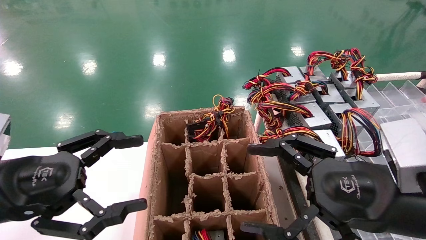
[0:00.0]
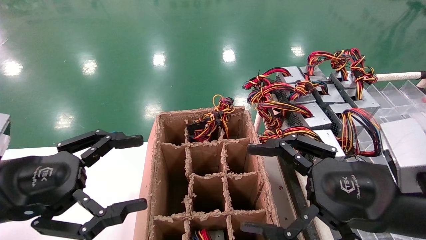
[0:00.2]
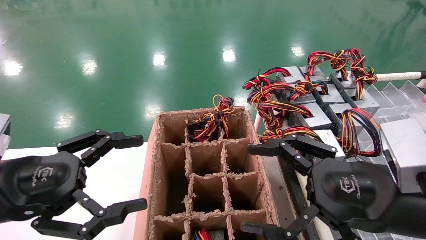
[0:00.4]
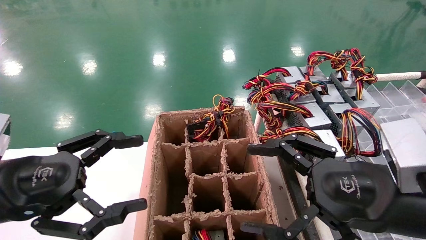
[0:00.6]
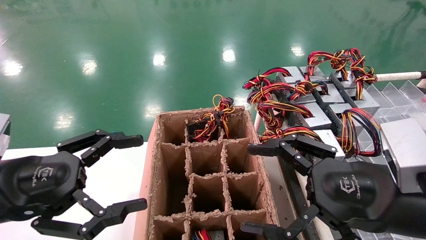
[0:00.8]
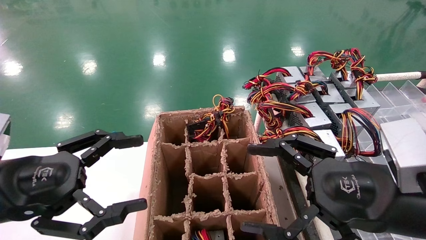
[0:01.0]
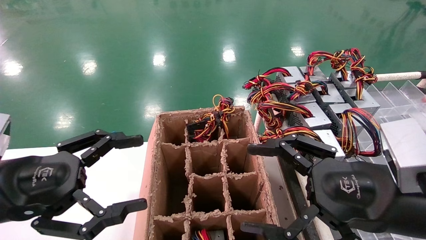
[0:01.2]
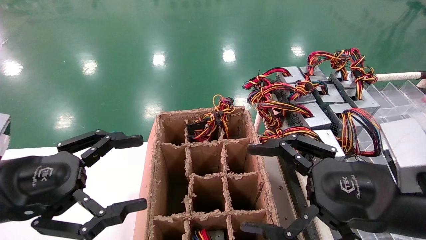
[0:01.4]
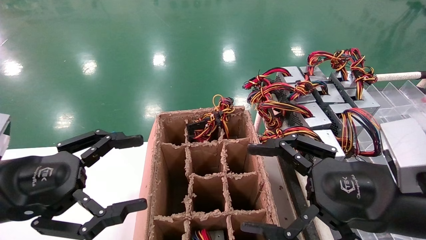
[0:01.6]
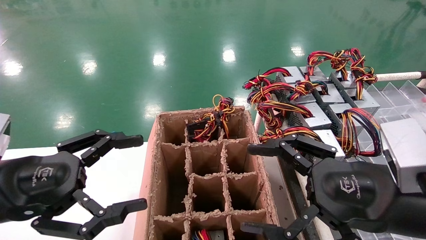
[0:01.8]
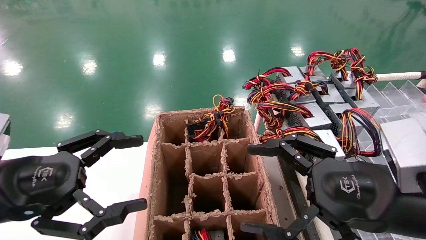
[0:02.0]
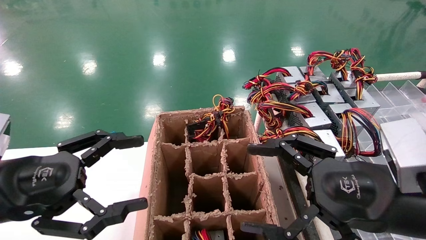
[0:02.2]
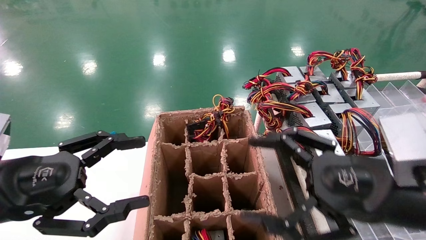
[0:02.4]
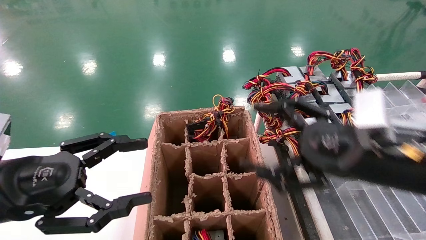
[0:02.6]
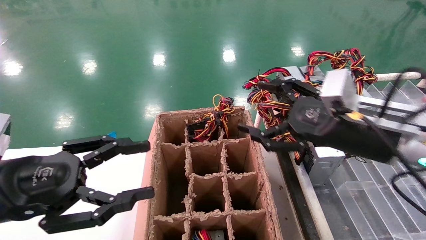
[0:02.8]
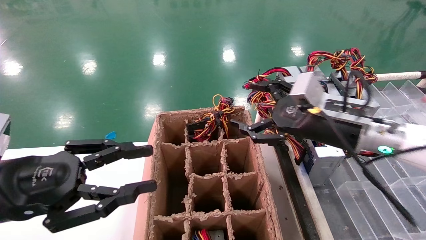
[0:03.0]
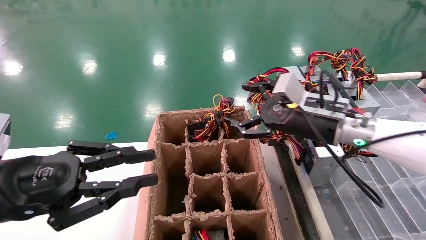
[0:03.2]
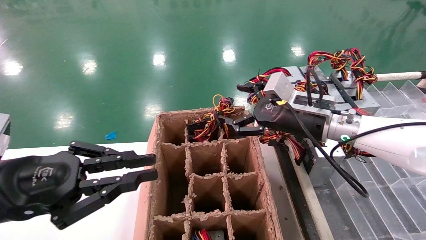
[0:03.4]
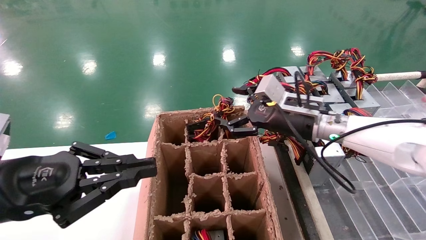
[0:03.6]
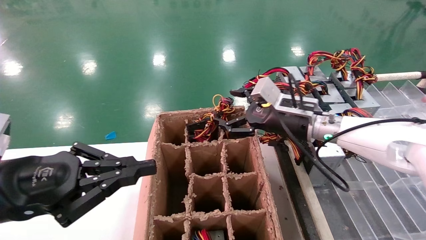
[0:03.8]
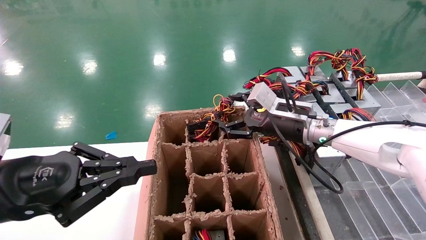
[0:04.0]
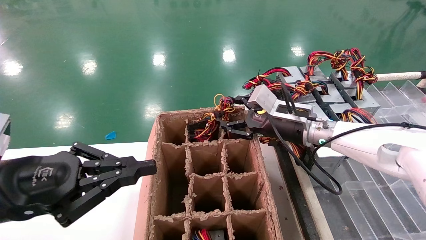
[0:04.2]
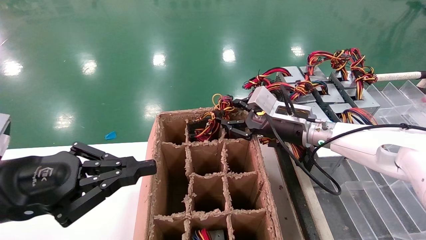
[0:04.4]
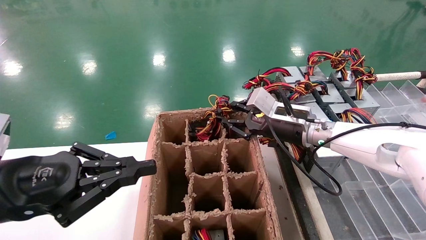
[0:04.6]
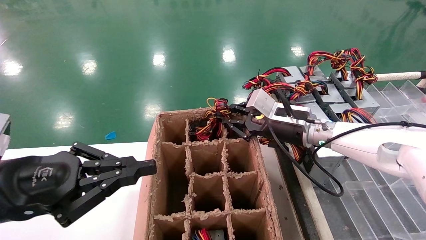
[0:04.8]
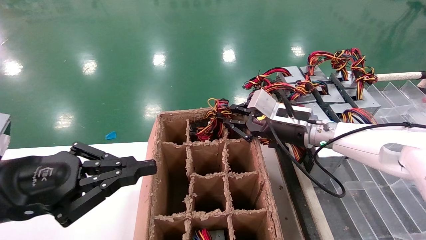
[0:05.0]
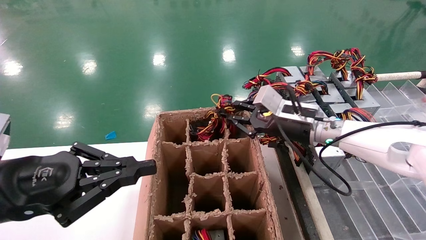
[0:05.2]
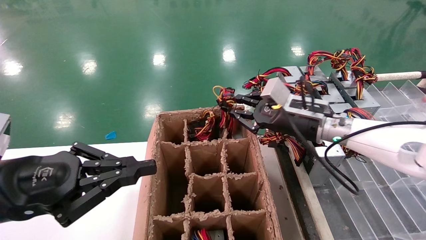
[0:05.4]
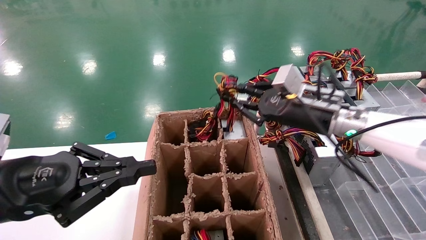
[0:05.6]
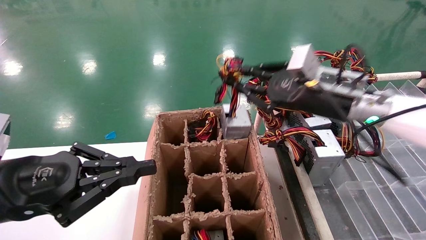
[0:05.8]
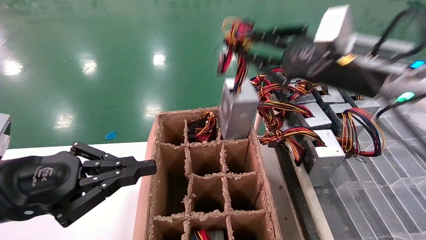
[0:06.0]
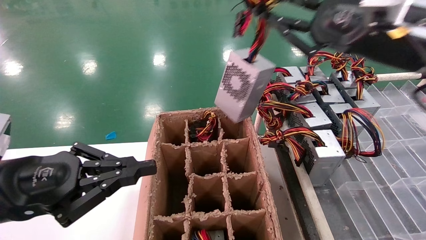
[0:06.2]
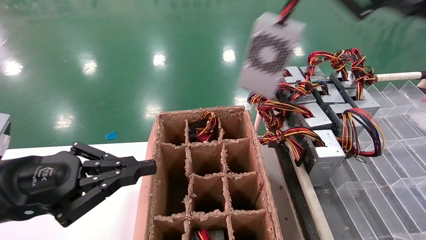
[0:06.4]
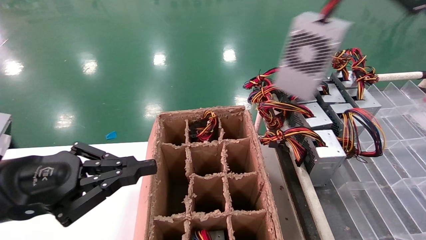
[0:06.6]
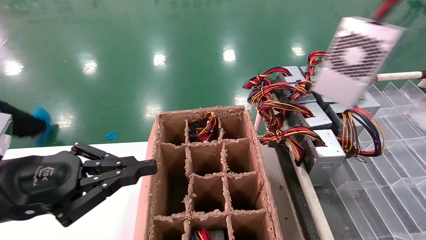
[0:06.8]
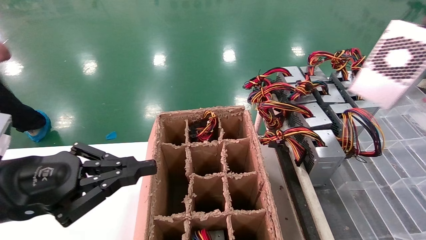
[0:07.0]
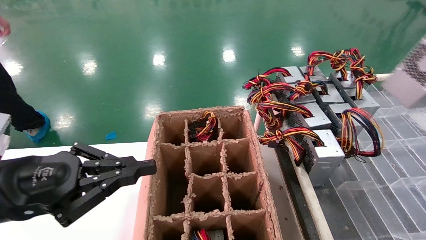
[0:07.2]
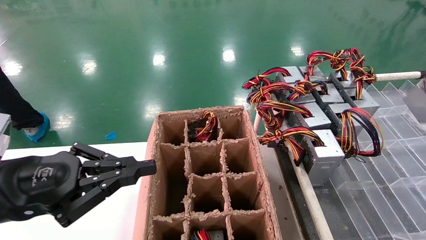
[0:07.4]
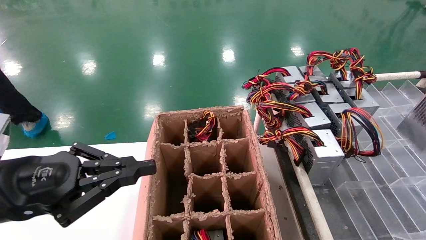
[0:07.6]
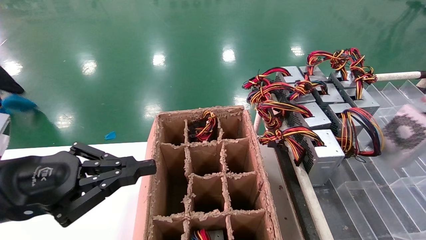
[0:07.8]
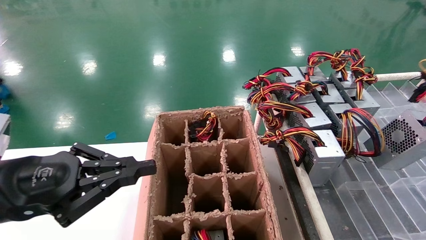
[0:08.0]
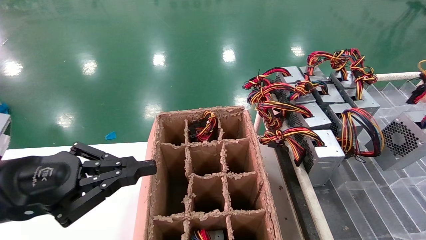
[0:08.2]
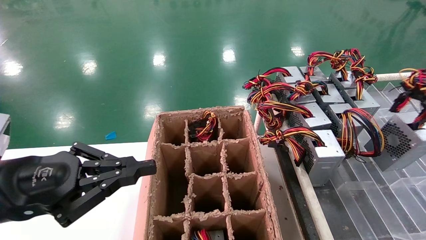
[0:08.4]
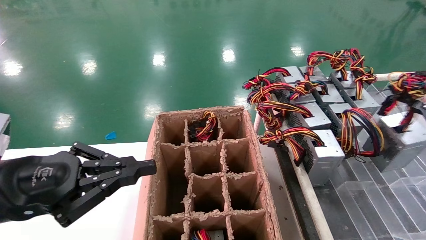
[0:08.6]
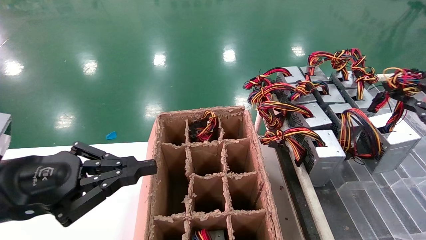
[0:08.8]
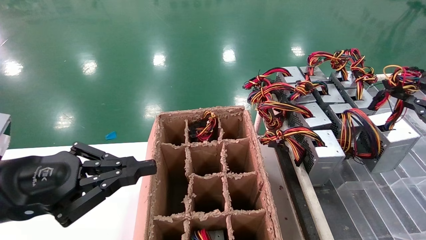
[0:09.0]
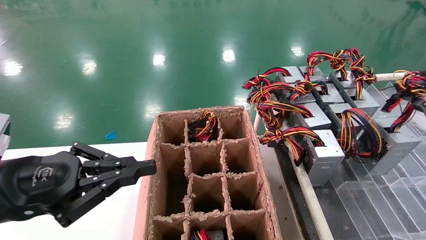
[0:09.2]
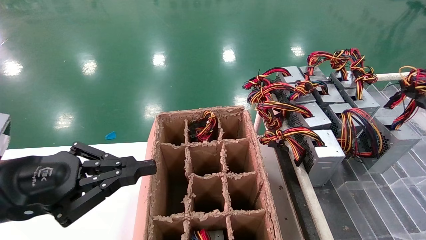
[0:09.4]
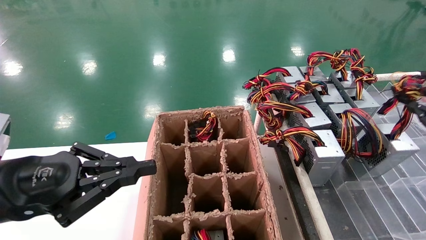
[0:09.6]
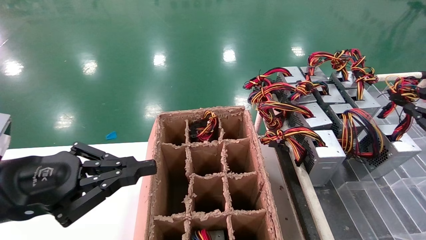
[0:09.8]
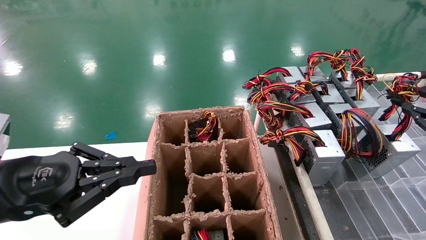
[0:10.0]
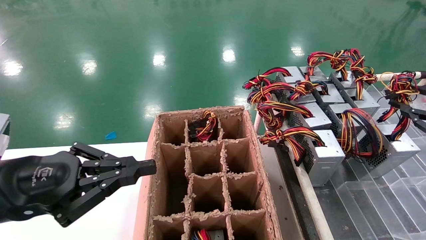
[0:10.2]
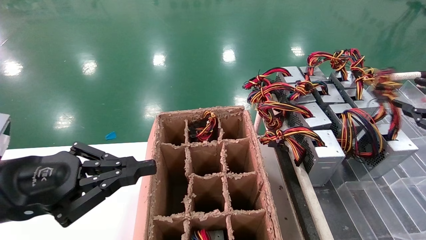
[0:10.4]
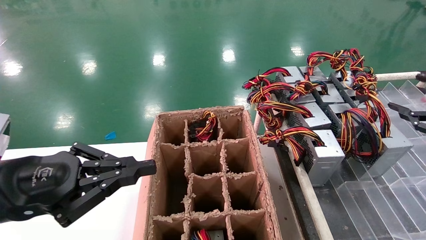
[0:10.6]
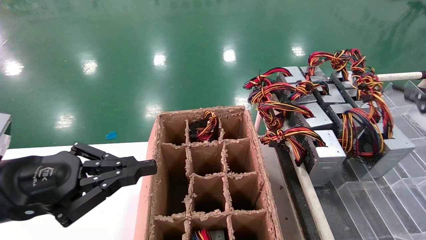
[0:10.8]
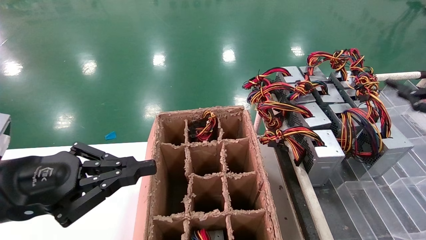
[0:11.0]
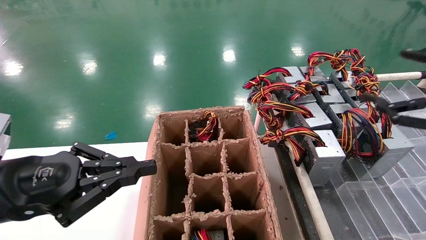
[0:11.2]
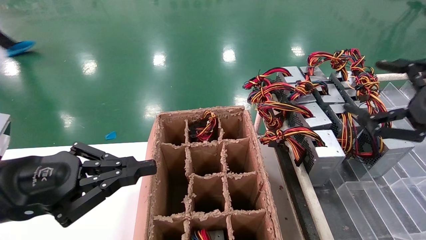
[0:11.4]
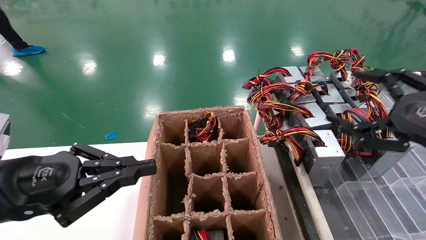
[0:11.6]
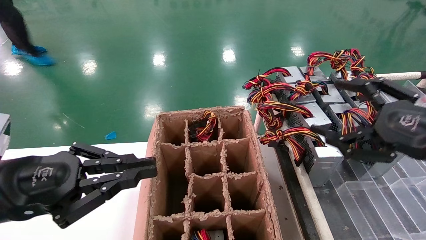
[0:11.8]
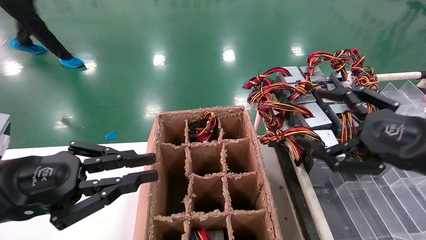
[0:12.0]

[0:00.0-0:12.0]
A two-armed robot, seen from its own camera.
Step, 0:02.8 to 0:05.0: Grab the main unit power supply from the containment box.
Step, 0:05.2 to 0:10.8: Place the main unit power supply in the designated area.
0:00.0 to 0:01.6: Both grippers stay put.
0:01.6 to 0:03.0: The right gripper heads forward, covering roughly 15 cm. Meanwhile the left gripper closes its fingers.
0:03.0 to 0:04.4: The left gripper closes; the right gripper heads forward, covering roughly 10 cm, and closes up.
0:04.4 to 0:06.0: The right gripper moves upward, backward and to the right, some 20 cm, and closes.
0:06.0 to 0:07.6: The right gripper goes some 30 cm to the right and backward.
0:07.6 to 0:09.0: The right gripper moves downward and to the left, about 10 cm.
0:09.0 to 0:10.4: The grippers stay close to where they were, moving slightly.
0:10.4 to 0:12.0: The right gripper goes roughly 15 cm to the left, and opens up.

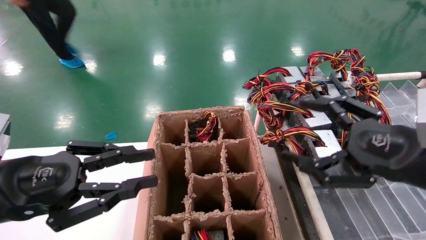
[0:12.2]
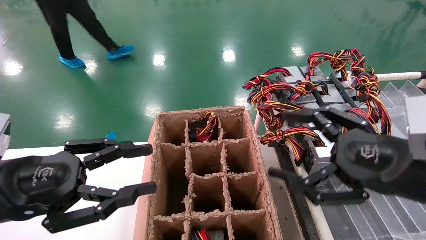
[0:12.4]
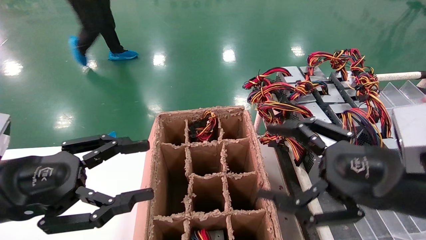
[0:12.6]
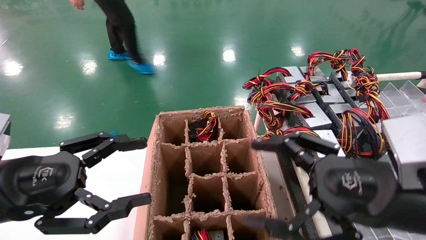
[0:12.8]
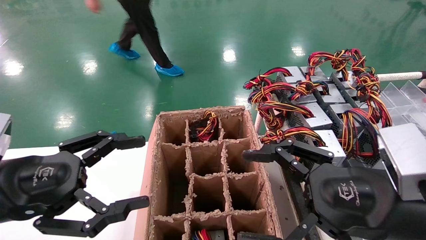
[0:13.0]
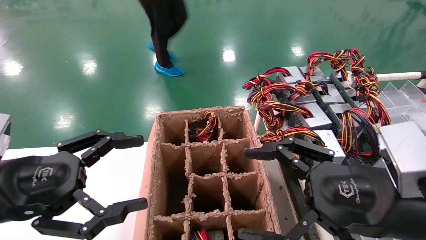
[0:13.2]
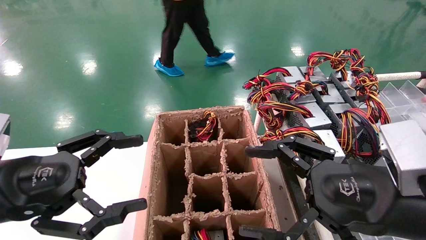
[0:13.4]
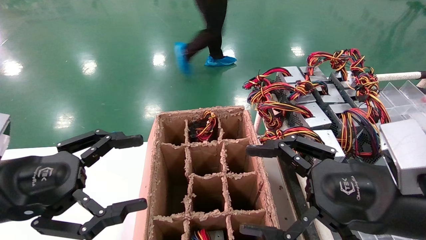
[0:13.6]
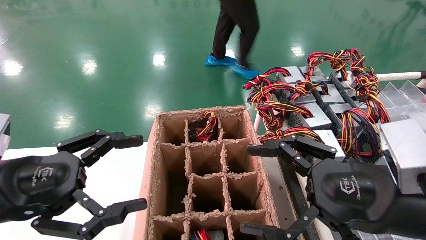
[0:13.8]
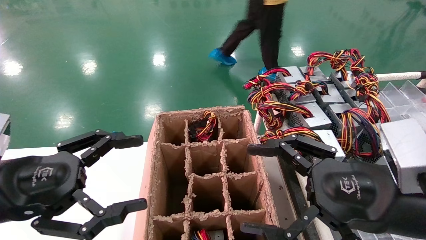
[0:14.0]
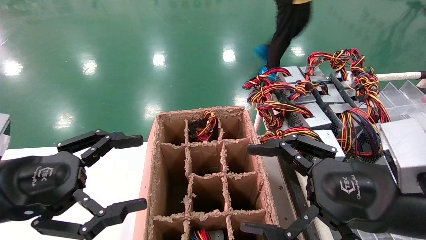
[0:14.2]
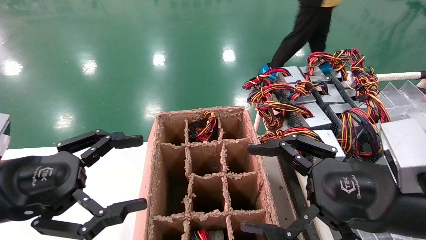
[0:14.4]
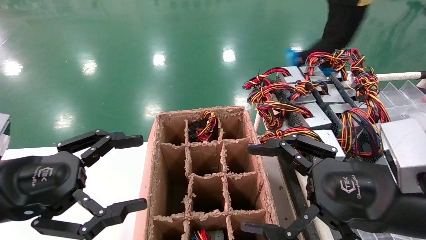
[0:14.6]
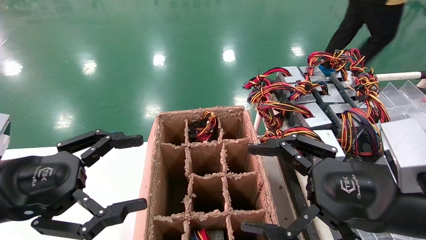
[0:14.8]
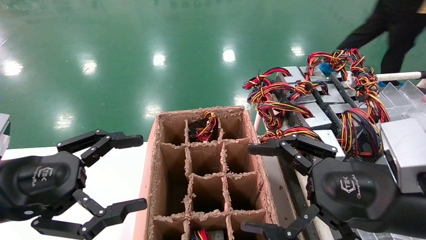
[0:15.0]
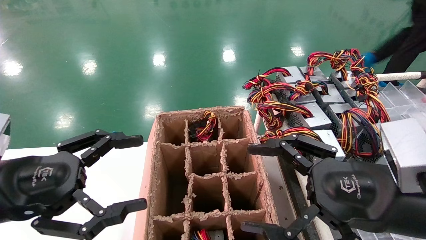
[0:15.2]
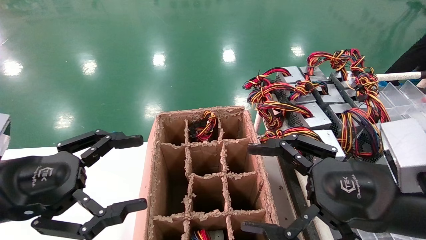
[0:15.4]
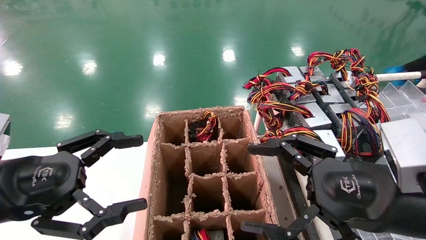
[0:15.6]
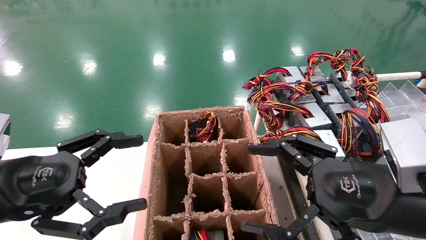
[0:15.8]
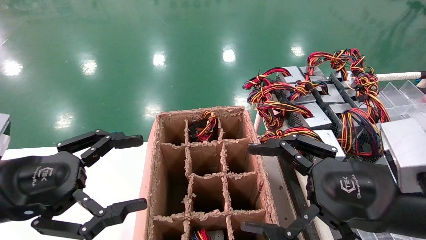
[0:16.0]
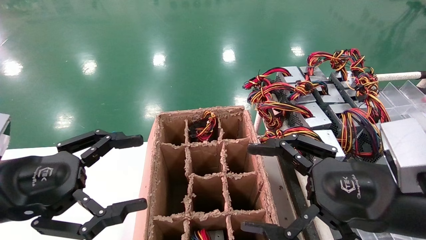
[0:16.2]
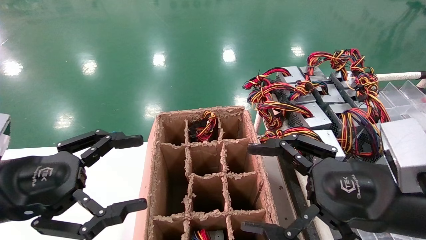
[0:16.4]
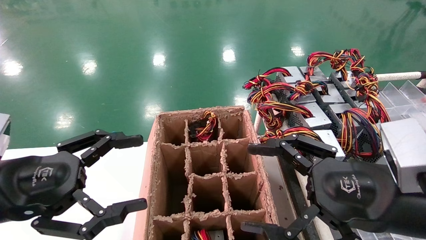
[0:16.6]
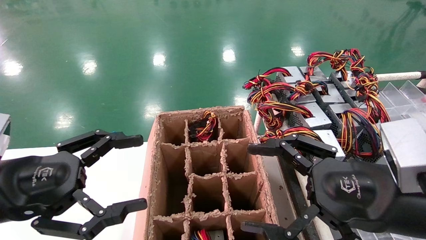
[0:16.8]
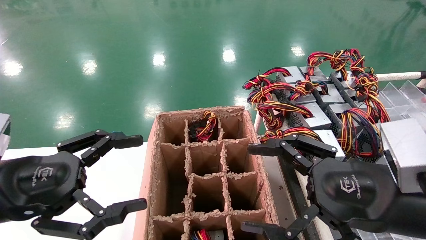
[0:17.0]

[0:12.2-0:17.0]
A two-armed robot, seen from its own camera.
0:12.2 to 0:13.8: The left gripper opens its fingers. The right gripper moves to the left, about 5 cm.
0:13.8 to 0:17.0: Both grippers stay put.
